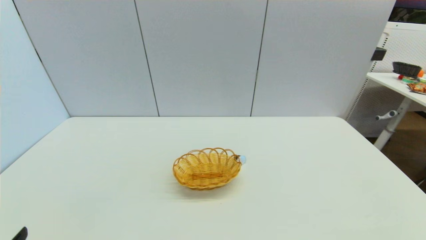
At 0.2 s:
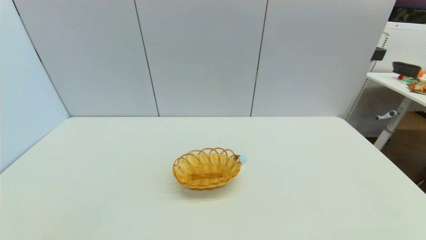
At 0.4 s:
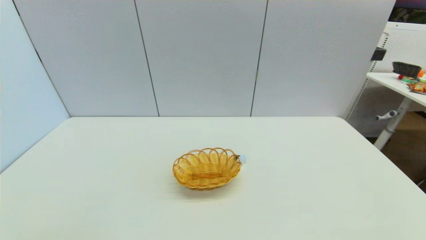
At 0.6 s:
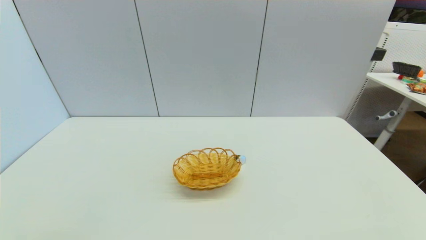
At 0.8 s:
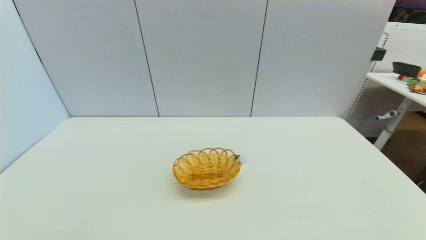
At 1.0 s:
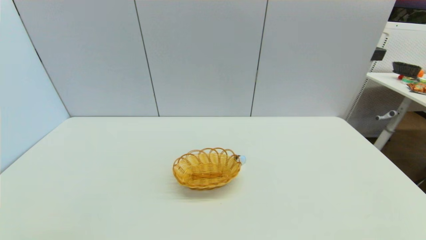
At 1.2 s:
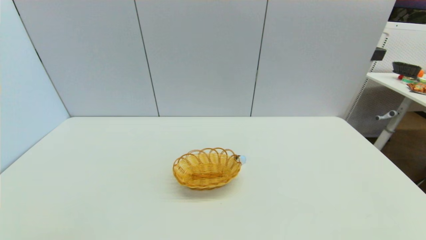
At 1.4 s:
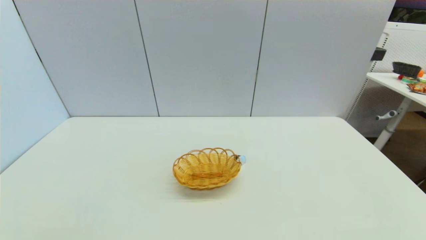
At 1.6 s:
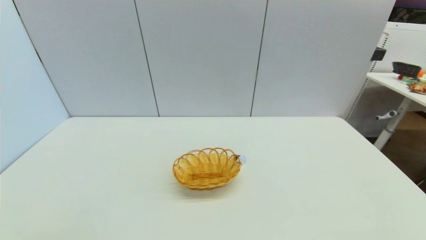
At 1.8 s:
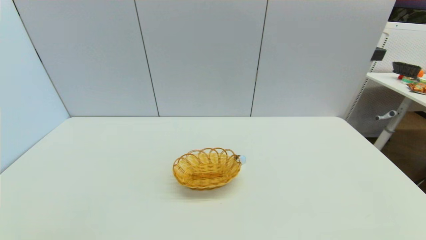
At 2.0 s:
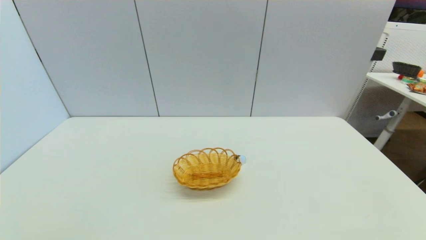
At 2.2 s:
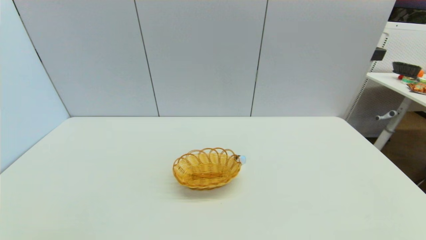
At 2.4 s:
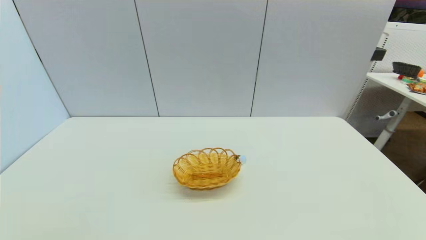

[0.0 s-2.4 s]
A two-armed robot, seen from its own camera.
1.2 to 2.4 s: Both grippers stay about where they are.
